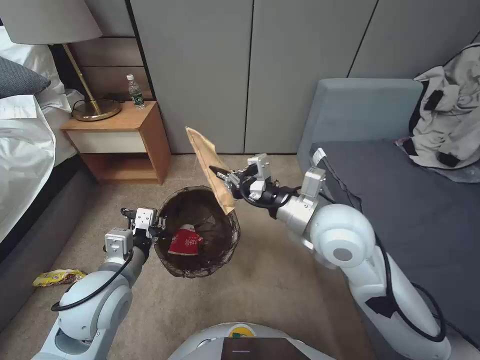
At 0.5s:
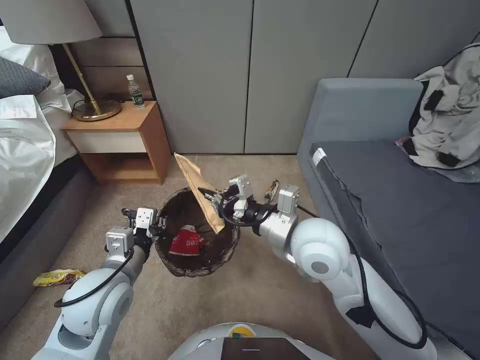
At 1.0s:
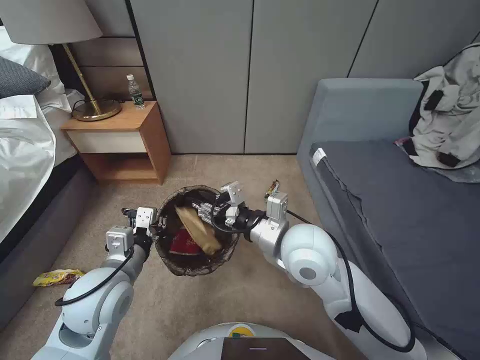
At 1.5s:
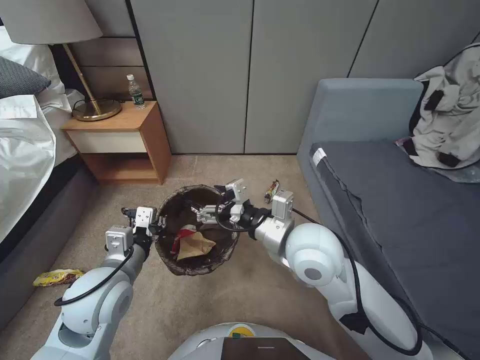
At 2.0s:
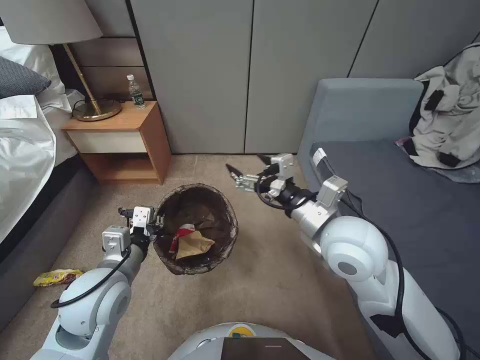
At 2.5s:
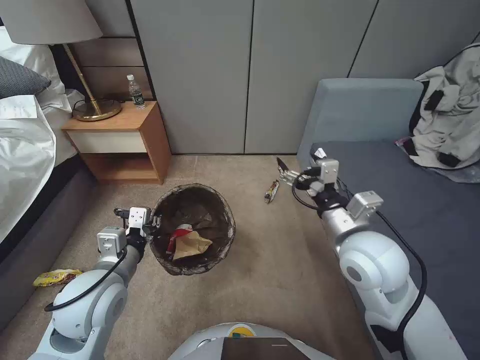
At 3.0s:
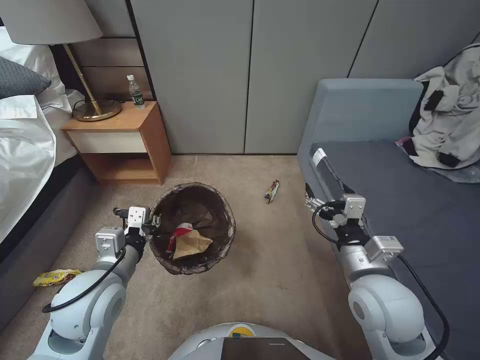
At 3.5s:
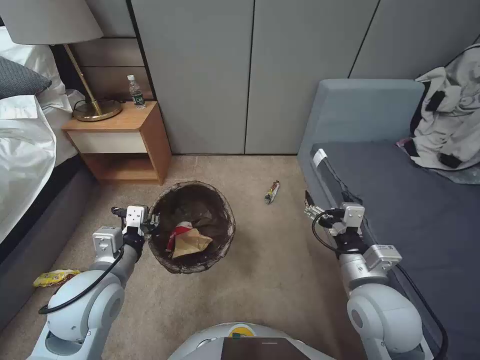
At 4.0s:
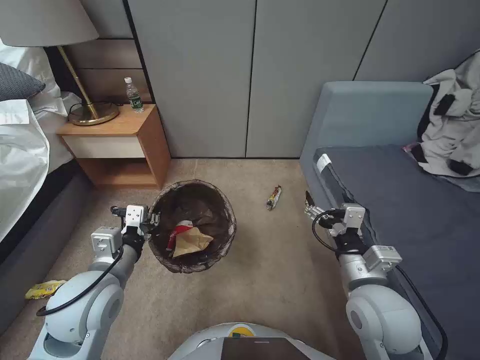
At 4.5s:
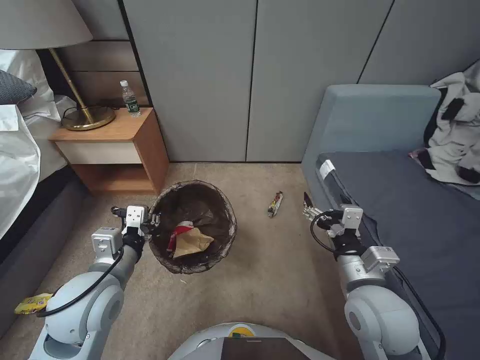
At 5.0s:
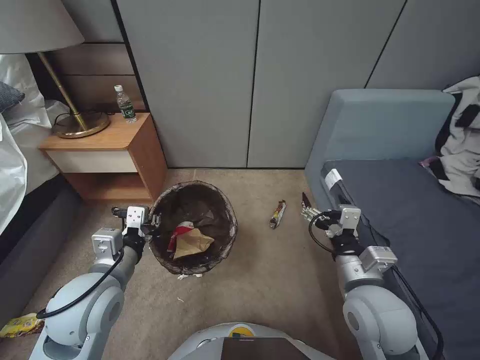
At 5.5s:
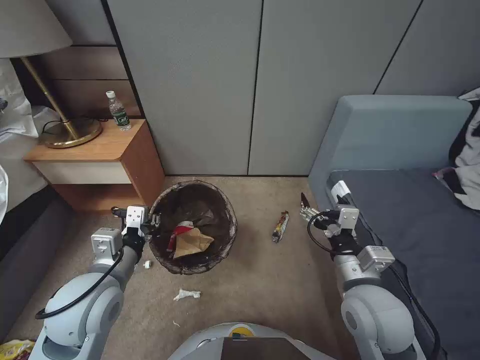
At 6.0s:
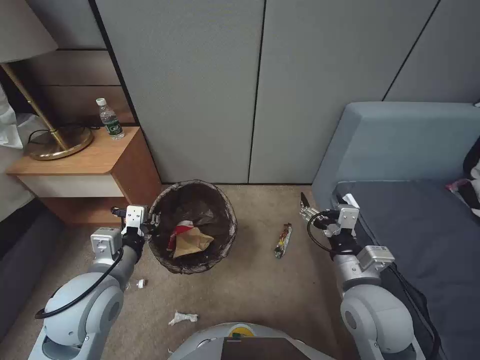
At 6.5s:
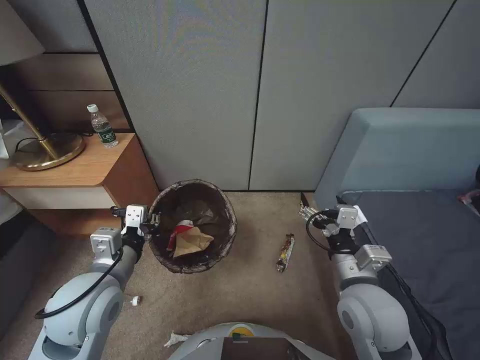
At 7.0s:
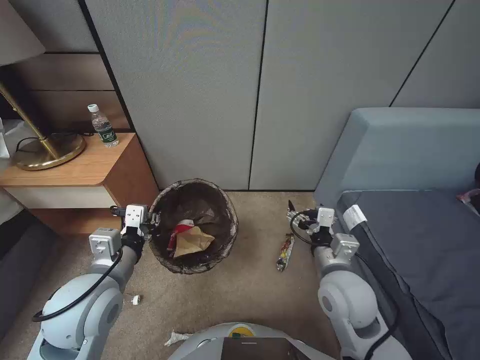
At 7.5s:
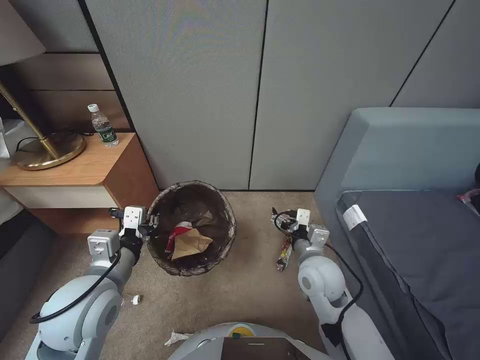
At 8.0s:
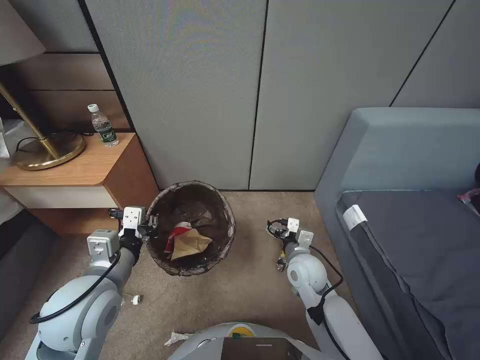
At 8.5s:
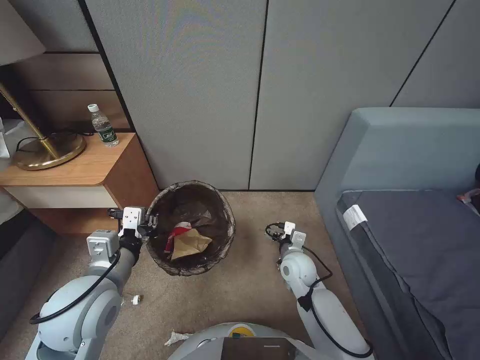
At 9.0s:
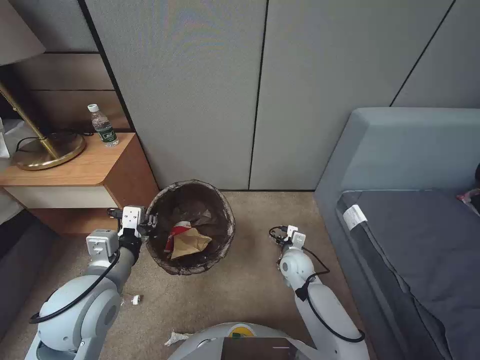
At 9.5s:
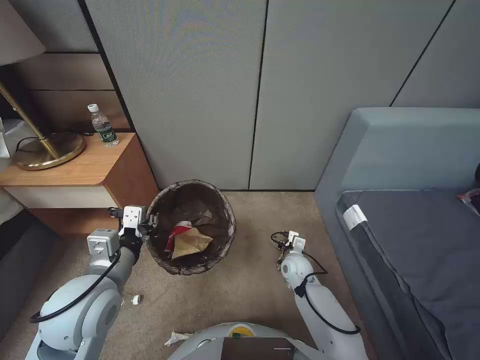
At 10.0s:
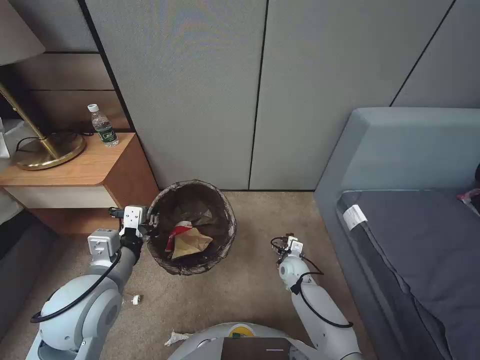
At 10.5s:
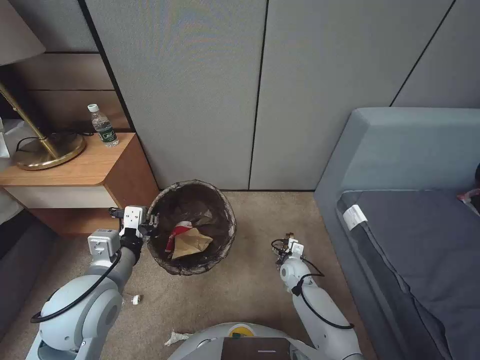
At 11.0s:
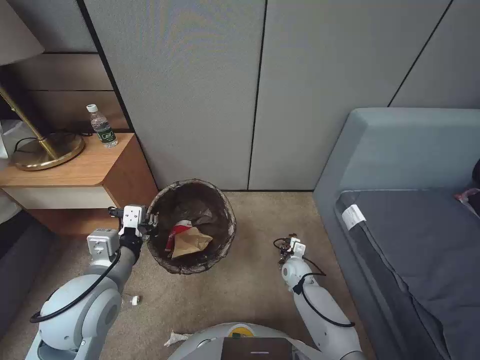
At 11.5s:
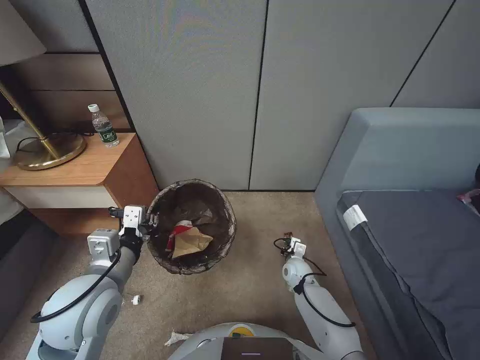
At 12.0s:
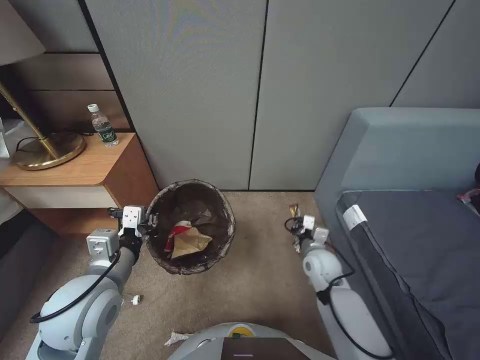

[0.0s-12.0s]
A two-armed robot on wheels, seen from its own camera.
Task of the whole recording: Pick up the trash bin, then pick up the garbage from the floor and place it into the trash bin.
0.0s to 2.0s: The right gripper opens.
2.0s to 4.0s: The right gripper travels downward, backward and to the right by roughly 15 cm.
6.0s to 8.0s: The right gripper heads downward and forward, covering approximately 15 cm.
8.0s to 10.0s: The right gripper shifts approximately 15 cm downward.
10.0s to 12.0s: The right gripper moves upward, some 5 cm, and closes up.

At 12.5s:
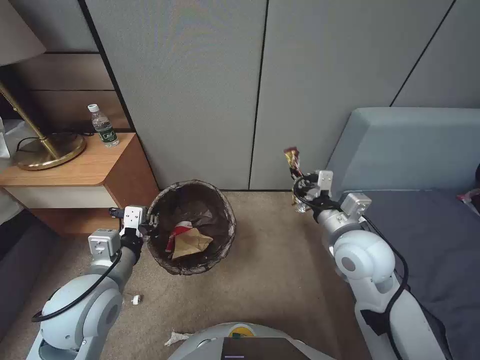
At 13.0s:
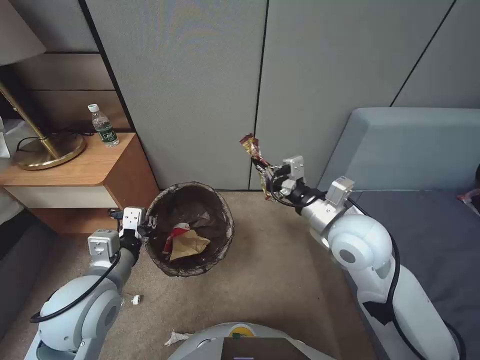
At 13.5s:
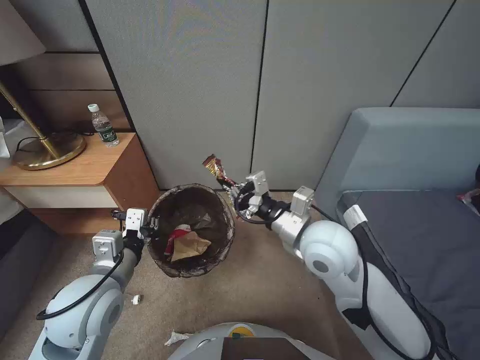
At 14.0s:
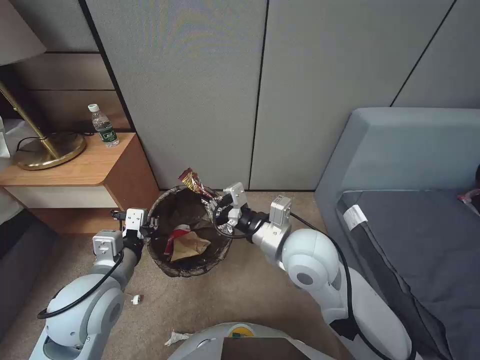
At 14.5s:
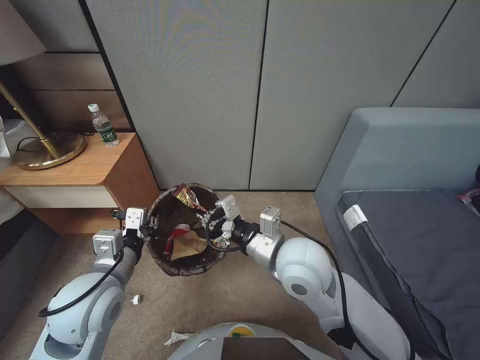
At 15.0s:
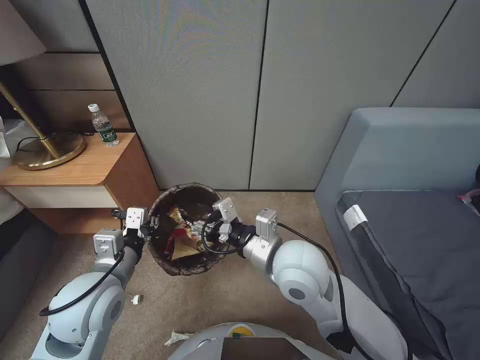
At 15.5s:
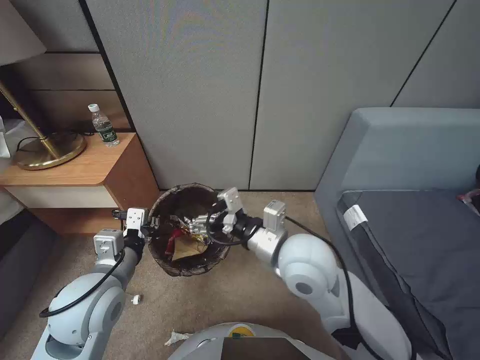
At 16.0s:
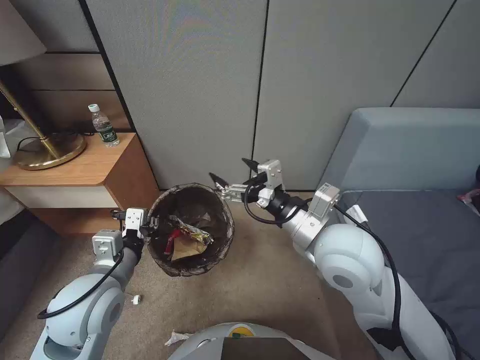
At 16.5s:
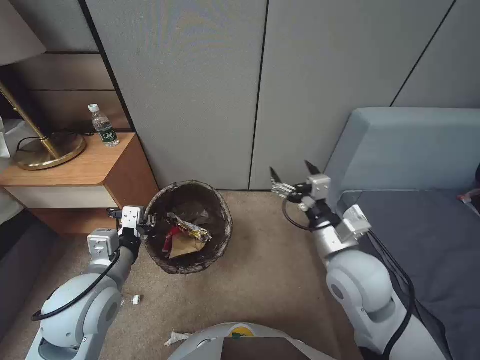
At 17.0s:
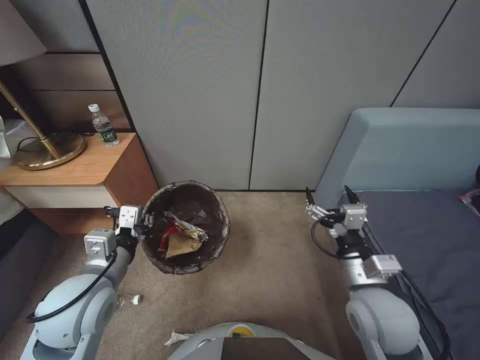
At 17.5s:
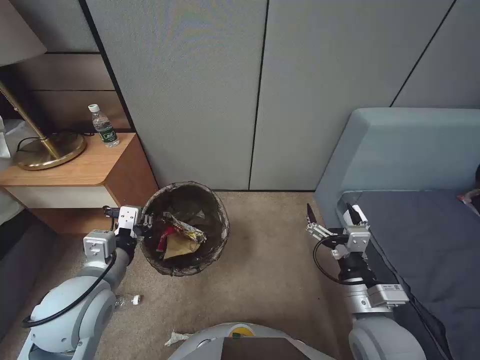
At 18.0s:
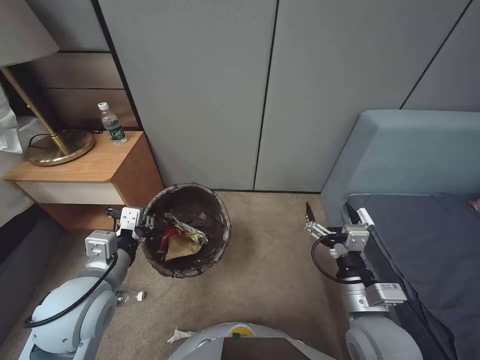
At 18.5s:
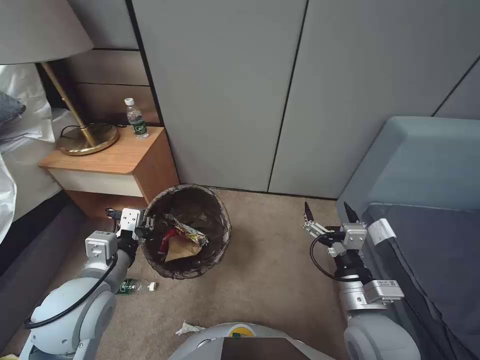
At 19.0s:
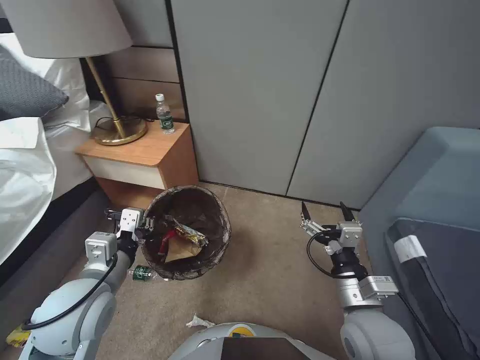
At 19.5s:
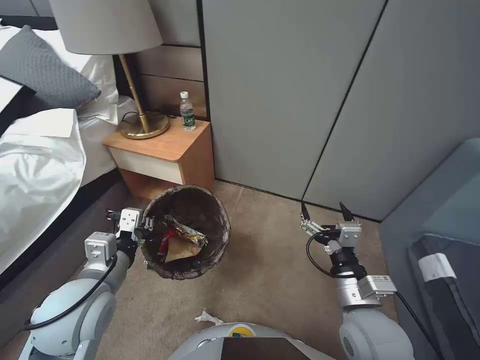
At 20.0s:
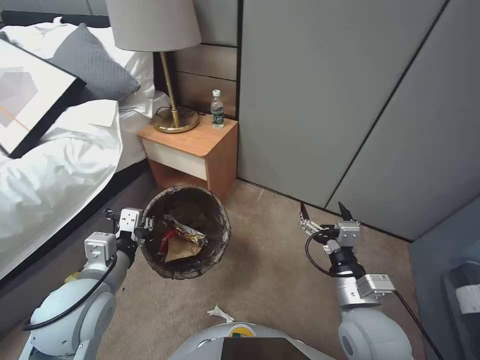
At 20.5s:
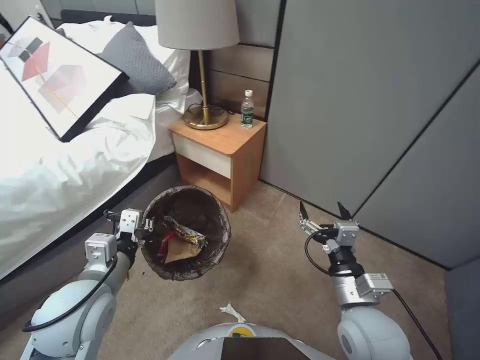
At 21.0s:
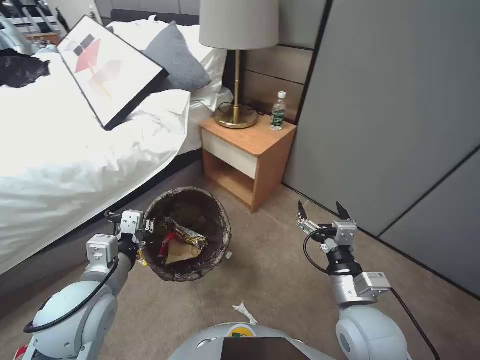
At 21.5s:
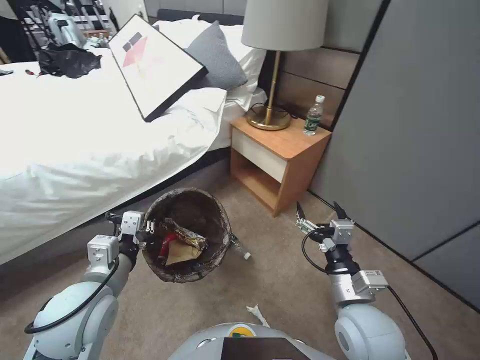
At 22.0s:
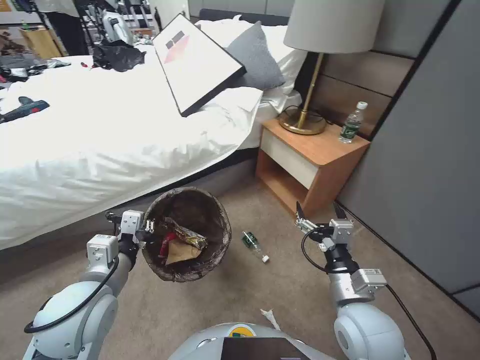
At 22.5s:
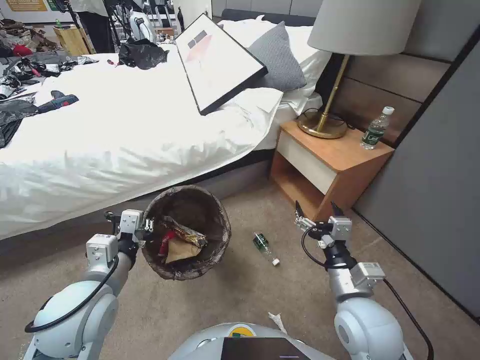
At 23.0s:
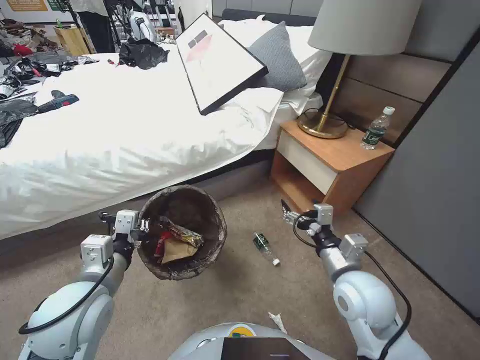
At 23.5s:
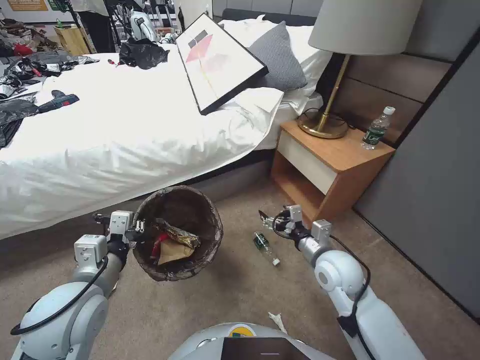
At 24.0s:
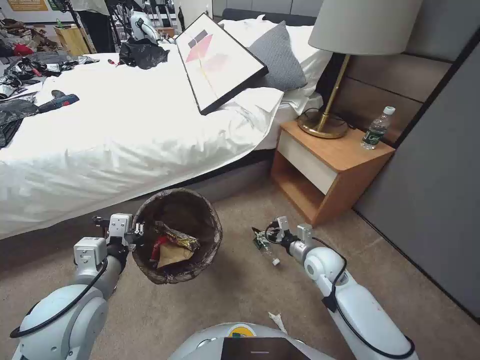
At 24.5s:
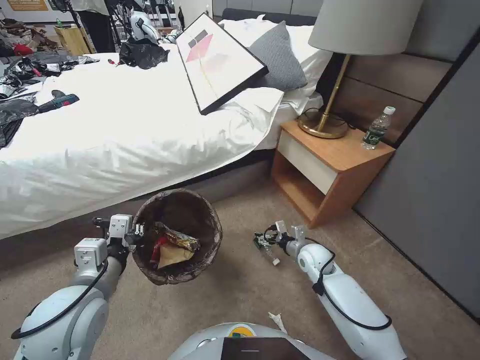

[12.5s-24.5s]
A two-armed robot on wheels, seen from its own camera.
Task of the whole recording: Pick up the trash bin, then pick up the garbage from the floor and place it into the trash bin.
12.5s to 14.5s: The right gripper goes approximately 15 cm to the left.
14.5s to 16.5s: The right gripper moves to the right, approximately 10 cm, and opens its fingers.
16.5s to 18.5s: The right gripper moves backward and downward, about 10 cm.
22.5s to 24.5s: The right gripper is displaced forward and downward by approximately 25 cm.

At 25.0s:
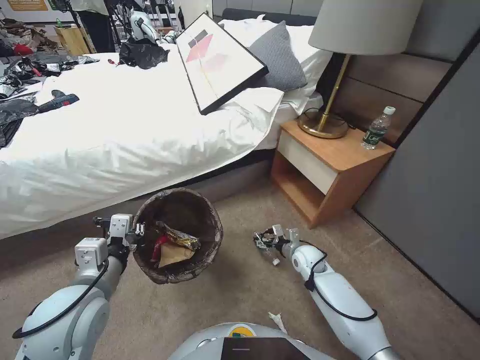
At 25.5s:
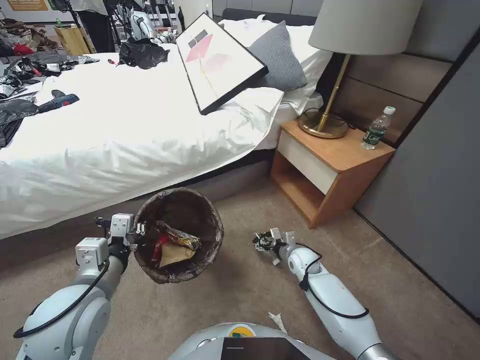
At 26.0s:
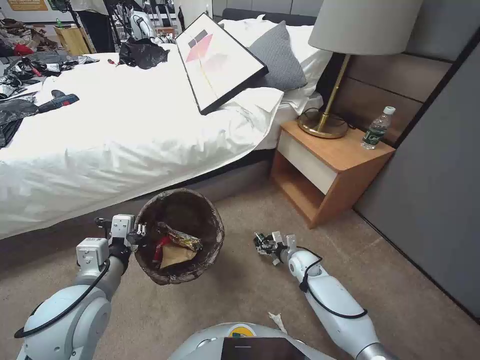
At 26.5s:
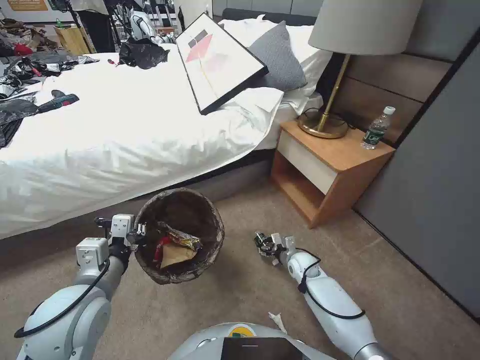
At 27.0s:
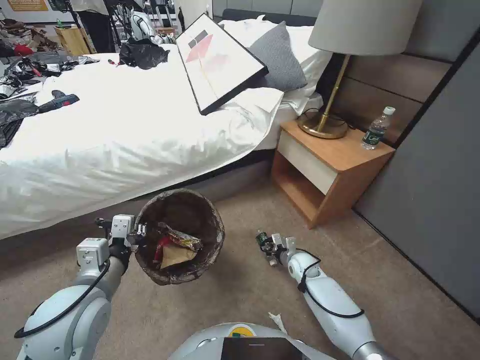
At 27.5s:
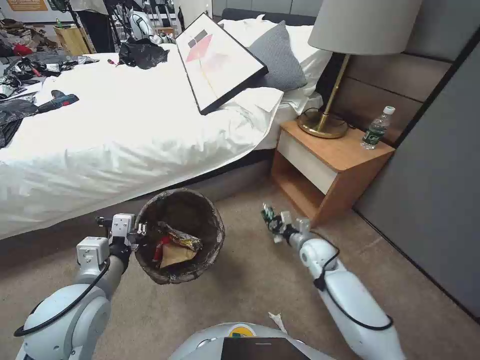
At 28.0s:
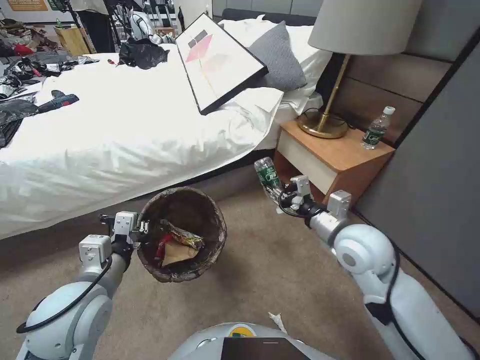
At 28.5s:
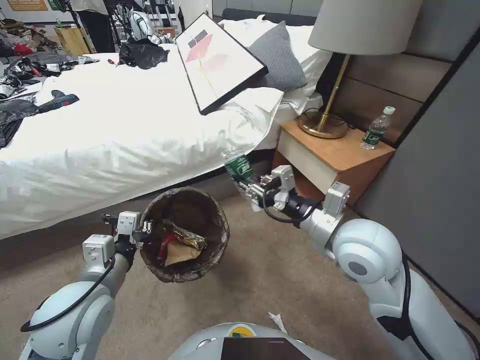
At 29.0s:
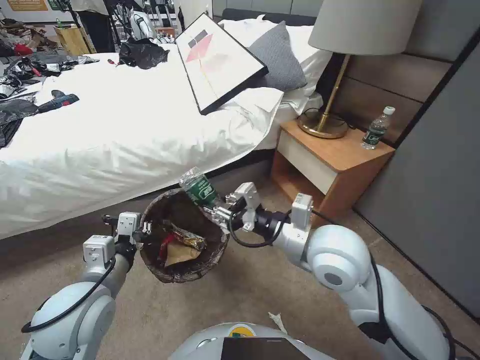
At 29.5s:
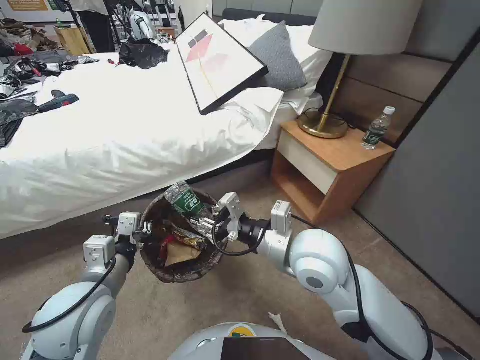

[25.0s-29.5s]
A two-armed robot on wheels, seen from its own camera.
Task of the whole recording: Pick up the trash bin, then pick up the garbage from the floor and place it into the trash bin.
25.0s to 27.0s: The right gripper goes about 5 cm downward, and closes up.
27.0s to 29.5s: The right gripper shifts about 35 cm upward.
